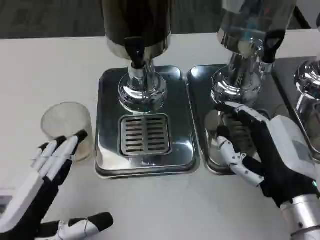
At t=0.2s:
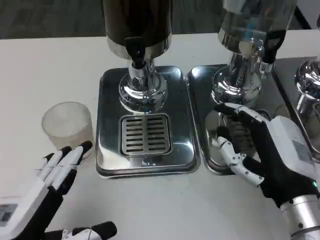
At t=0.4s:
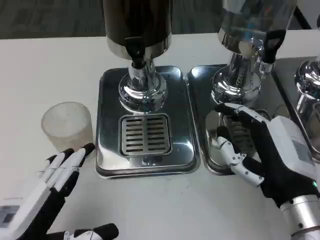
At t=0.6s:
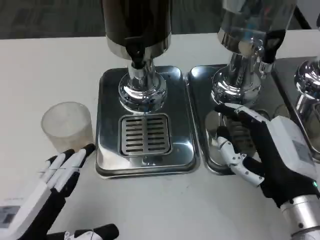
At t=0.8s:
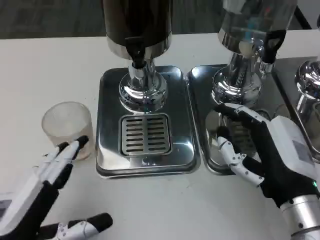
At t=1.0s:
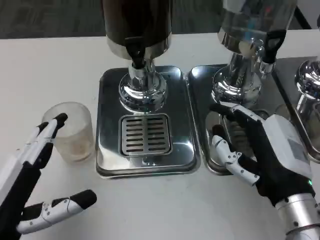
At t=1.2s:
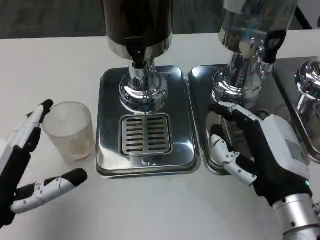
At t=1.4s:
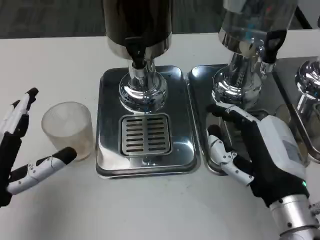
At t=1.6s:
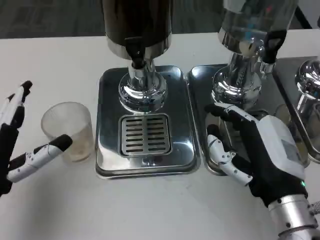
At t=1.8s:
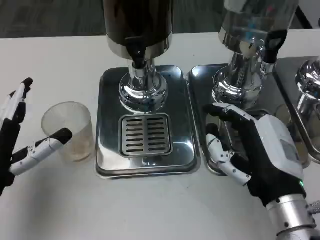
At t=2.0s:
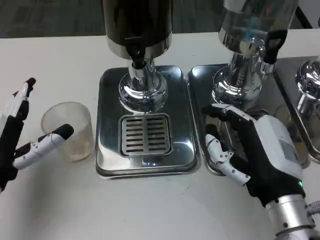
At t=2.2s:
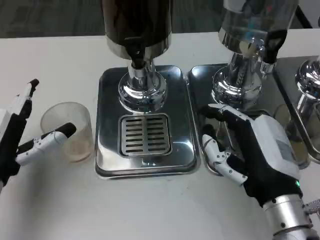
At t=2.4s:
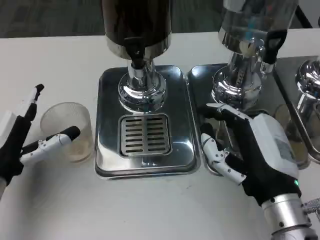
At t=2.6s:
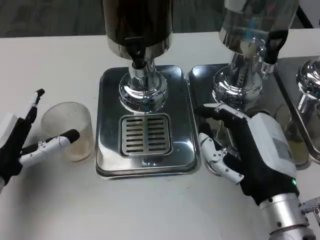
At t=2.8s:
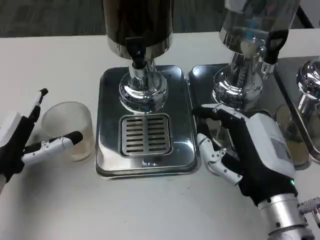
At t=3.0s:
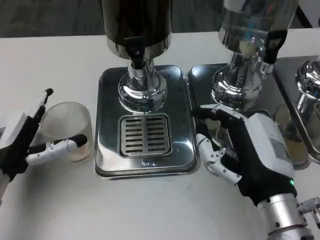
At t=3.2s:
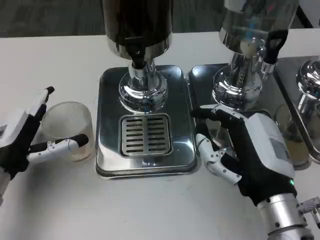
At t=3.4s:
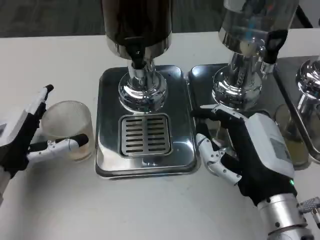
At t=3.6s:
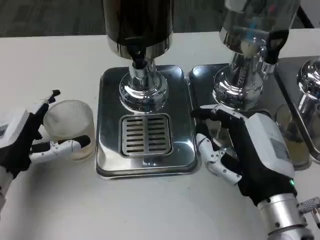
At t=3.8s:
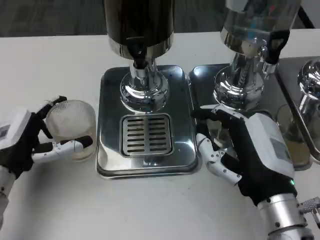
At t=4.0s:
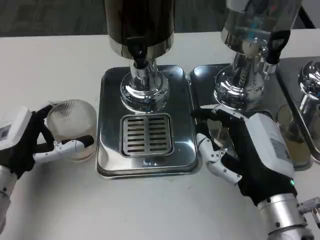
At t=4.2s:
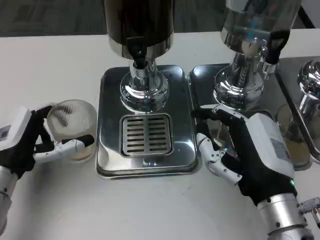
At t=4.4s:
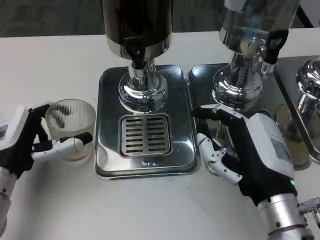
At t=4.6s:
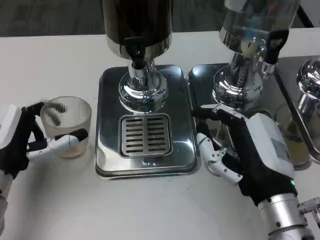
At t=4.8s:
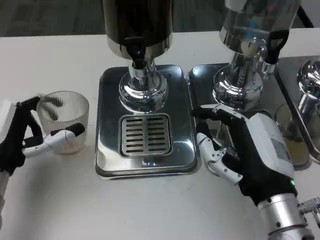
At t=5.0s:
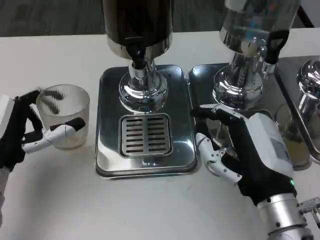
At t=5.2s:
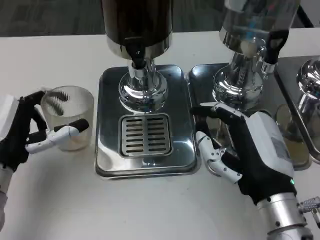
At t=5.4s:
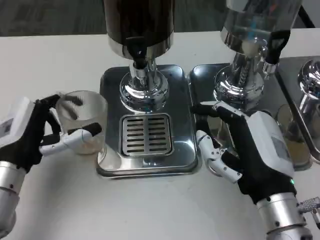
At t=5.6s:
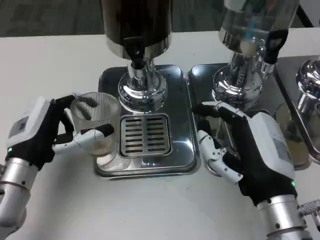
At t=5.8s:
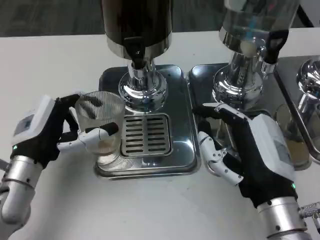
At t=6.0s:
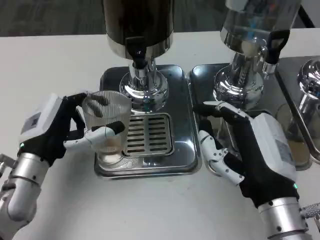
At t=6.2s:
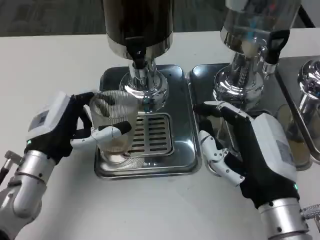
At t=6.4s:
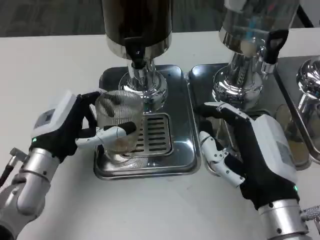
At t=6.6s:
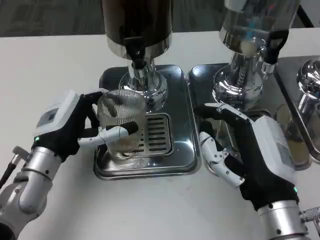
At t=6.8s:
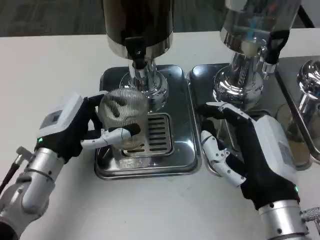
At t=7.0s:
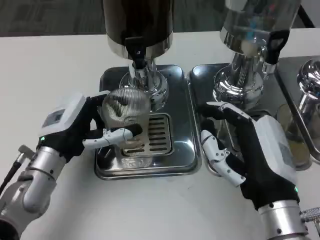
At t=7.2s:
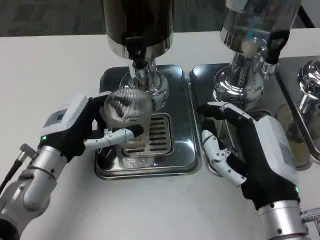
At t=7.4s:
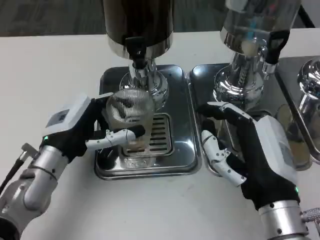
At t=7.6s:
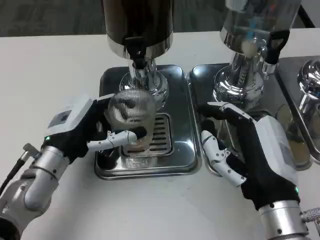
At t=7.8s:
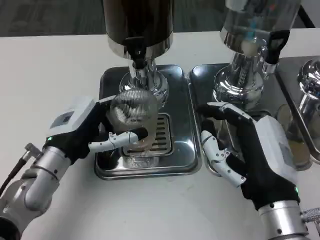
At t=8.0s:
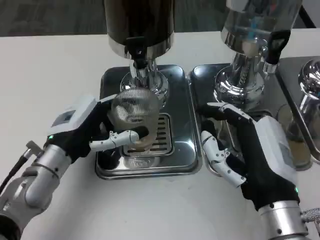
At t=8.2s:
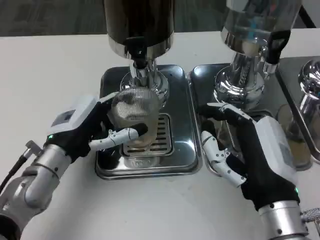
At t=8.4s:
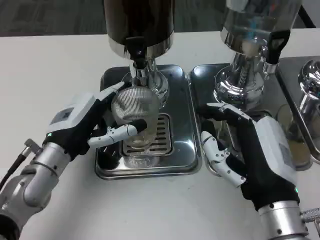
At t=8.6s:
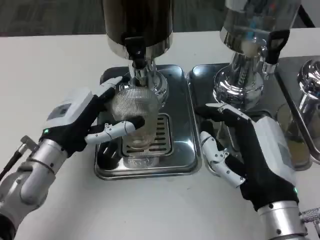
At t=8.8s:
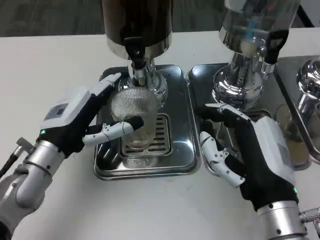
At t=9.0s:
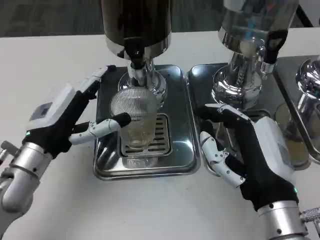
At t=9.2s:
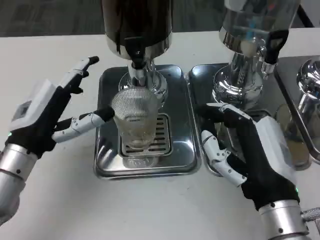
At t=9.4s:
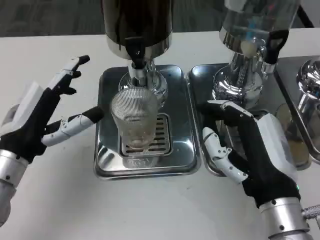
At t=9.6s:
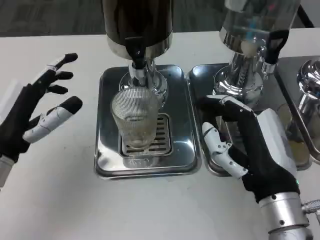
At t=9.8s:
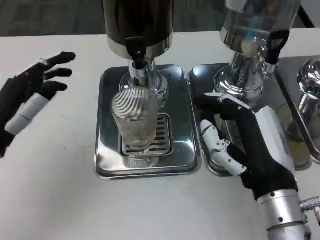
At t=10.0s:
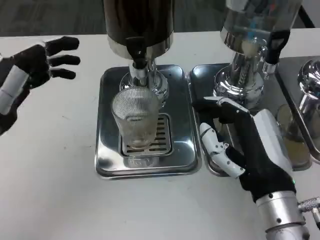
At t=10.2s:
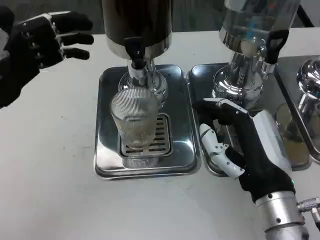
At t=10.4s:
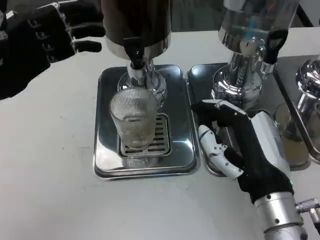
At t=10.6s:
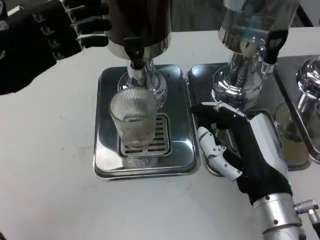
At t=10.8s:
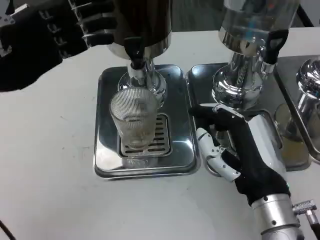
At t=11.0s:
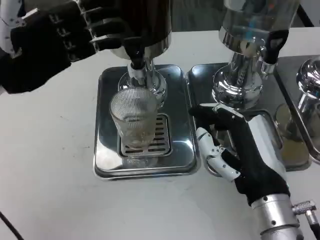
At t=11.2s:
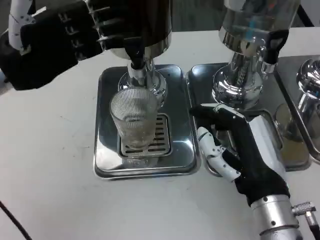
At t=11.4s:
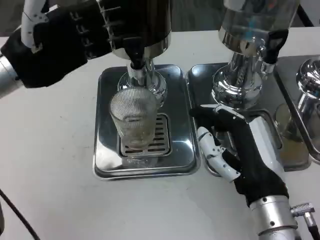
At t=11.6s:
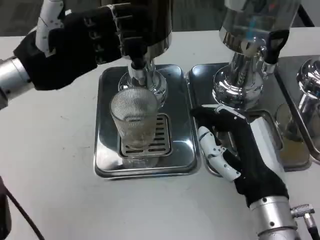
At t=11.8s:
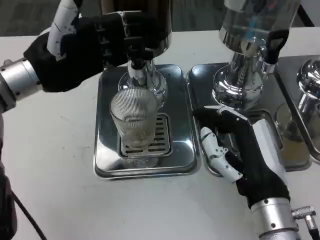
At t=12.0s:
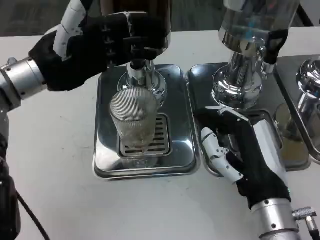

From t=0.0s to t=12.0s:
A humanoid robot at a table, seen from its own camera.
Task of the whole recording: Grasp the cup under the faucet to collect the drink, then remove the cup.
From t=0.0s to t=1.6s: The left hand shifts approximately 10 cm forward.
From t=1.6s to t=3.0s: The left hand travels forward by some 5 cm.
From t=3.0s to t=4.4s: There are only small adjustments of the hands.
From t=6.0s to t=7.6s: The hands make only small movements.
From t=9.0s to t=10.4s: The left hand moves upward and to the left, about 15 cm.
From t=10.4s to t=12.0s: The left hand is displaced to the right by about 5 cm.

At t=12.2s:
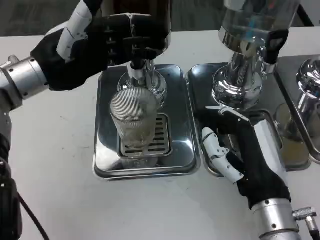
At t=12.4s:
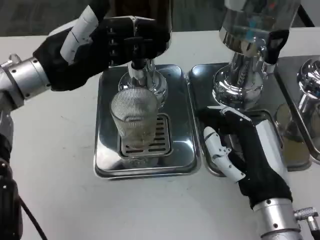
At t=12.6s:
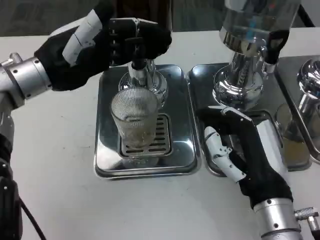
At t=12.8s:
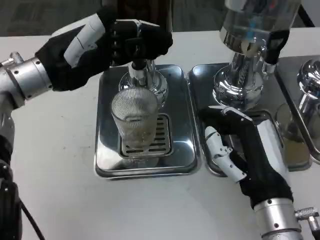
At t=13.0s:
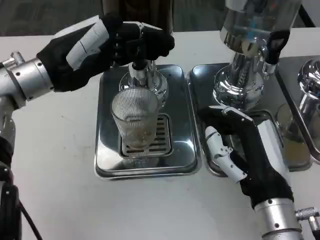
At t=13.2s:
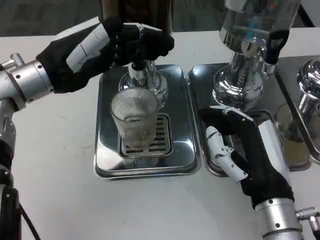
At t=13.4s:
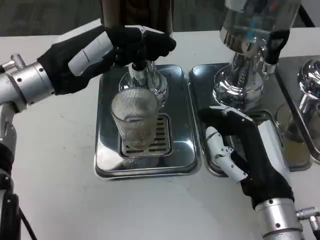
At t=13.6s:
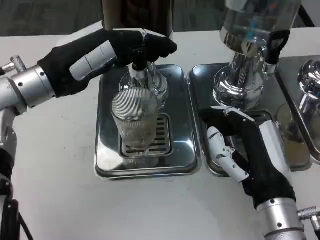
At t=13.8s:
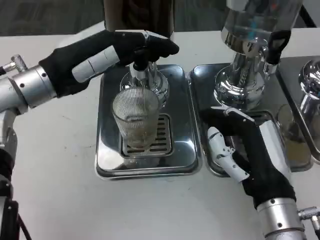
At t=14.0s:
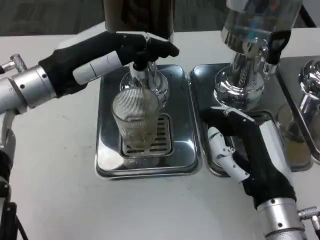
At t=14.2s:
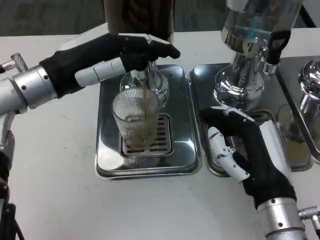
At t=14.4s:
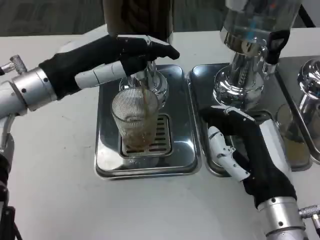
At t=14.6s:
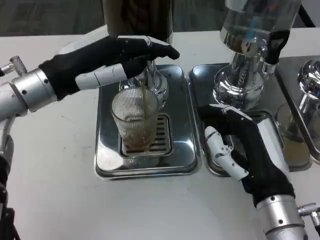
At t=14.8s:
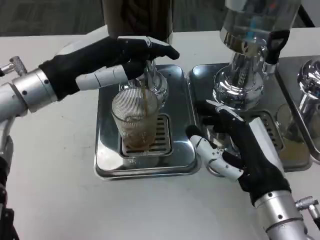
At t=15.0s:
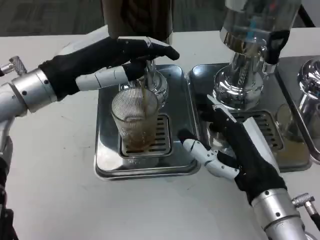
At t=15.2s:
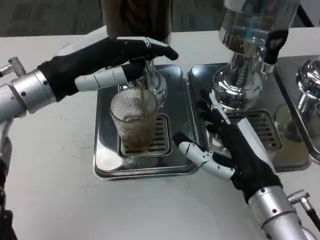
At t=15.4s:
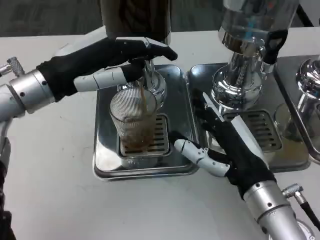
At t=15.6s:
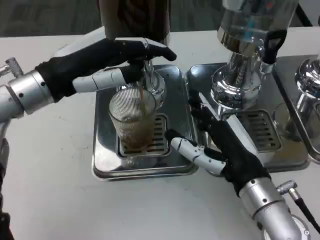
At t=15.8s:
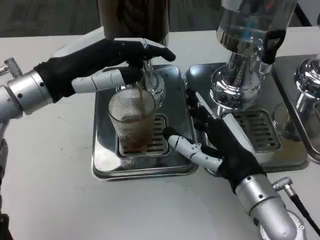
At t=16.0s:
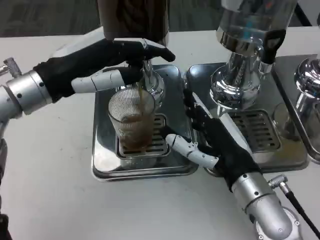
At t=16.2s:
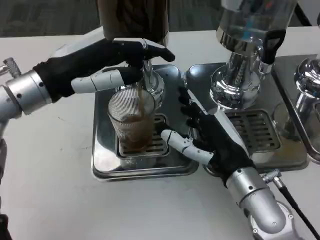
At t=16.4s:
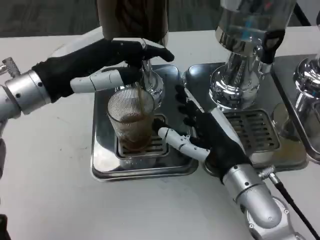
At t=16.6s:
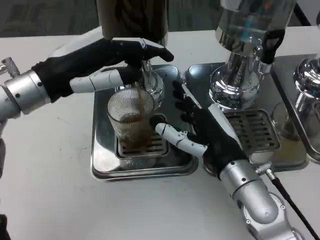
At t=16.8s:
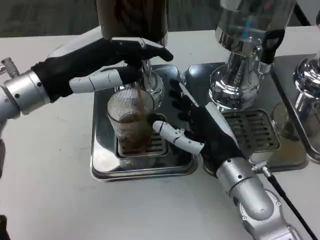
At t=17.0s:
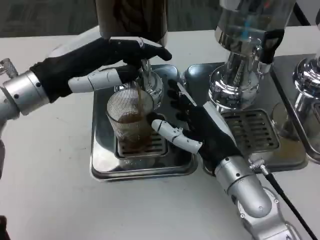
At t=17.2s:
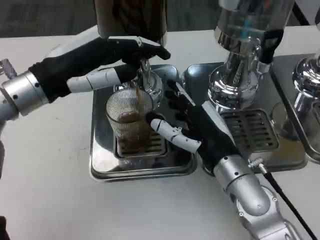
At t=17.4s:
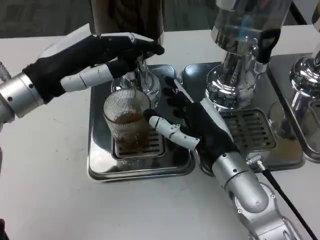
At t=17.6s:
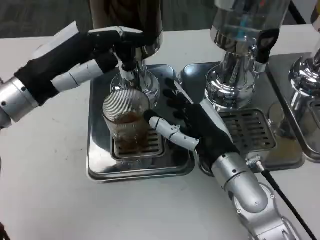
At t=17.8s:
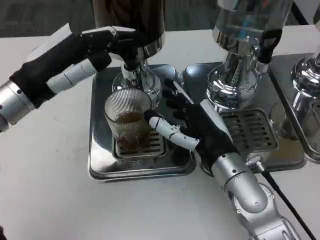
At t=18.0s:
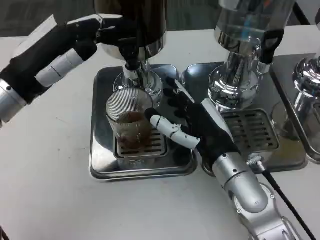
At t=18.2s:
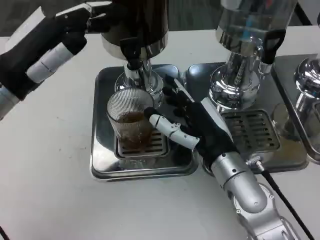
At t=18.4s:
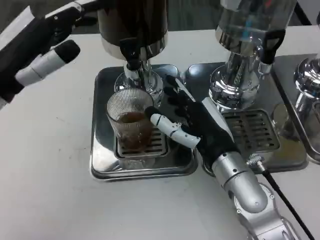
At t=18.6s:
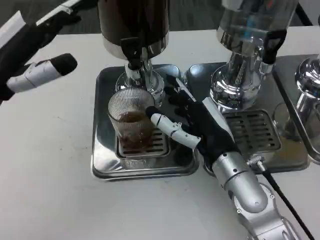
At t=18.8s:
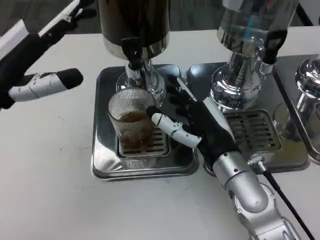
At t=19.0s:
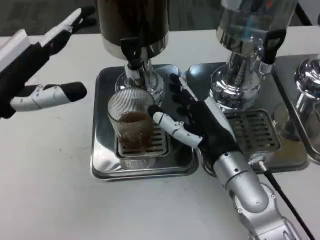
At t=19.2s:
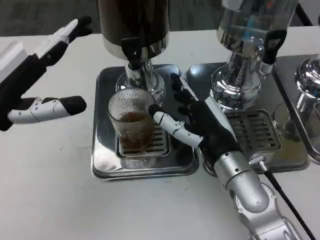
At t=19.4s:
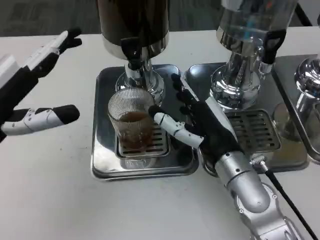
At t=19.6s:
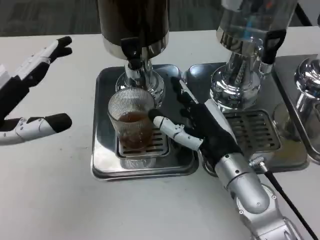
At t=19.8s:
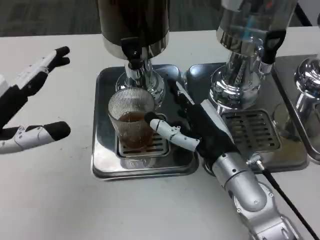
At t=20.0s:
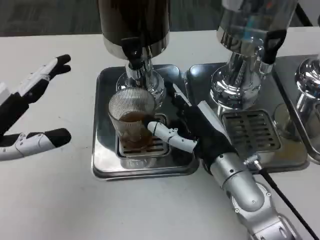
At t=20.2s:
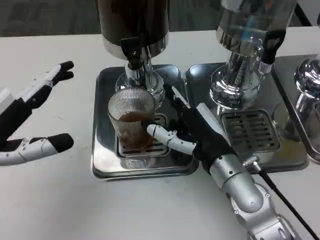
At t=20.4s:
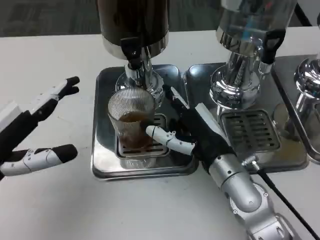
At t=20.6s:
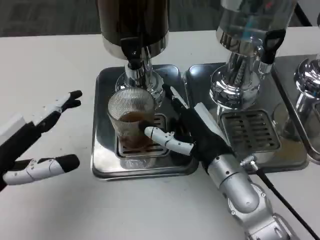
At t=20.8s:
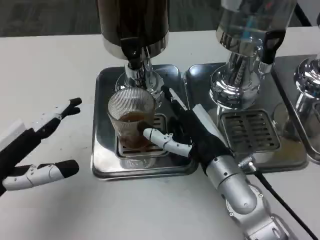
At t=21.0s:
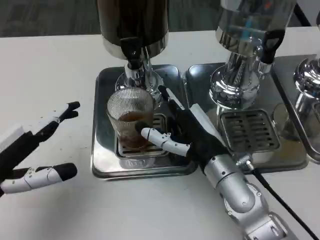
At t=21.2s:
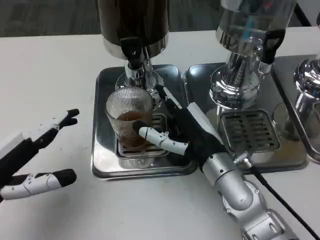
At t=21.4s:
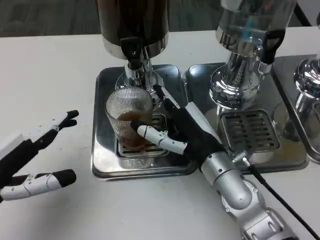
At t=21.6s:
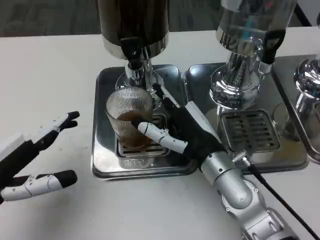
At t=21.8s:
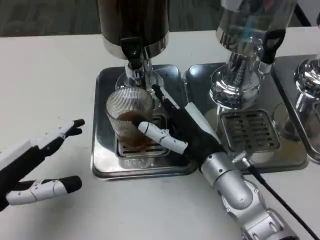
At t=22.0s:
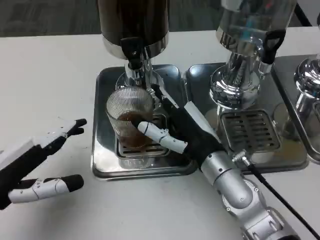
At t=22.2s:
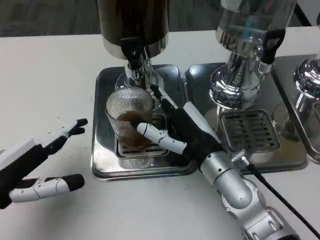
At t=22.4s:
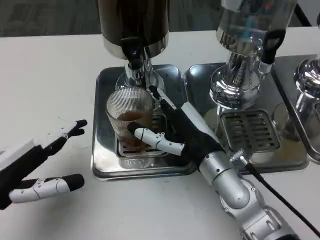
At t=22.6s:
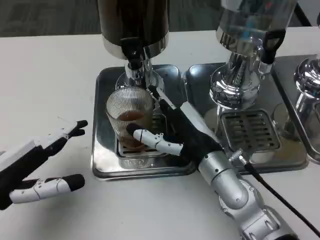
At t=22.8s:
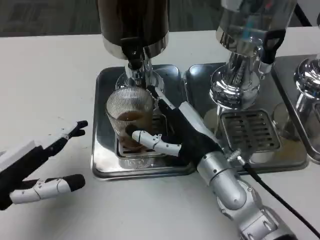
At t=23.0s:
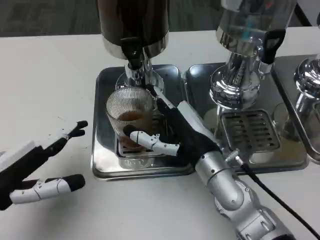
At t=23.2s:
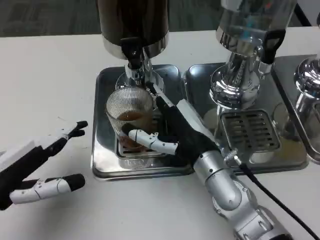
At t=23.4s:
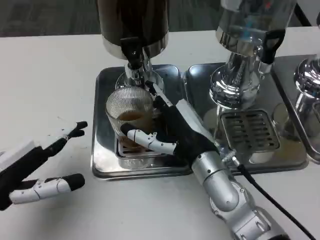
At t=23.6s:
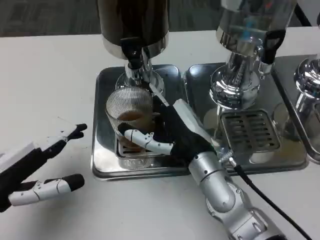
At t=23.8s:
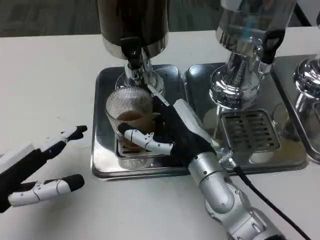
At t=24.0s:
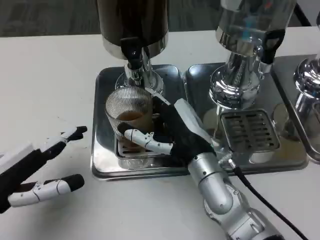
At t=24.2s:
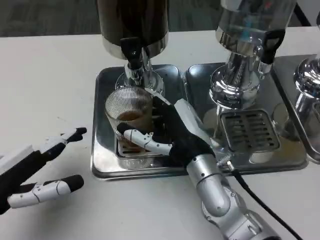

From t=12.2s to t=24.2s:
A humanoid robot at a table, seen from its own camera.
Task of the whole recording: Grasp the cup under the faucet to collect the drink, then remove the cup.
From t=15.2s to t=16.6s: The right hand moves approximately 5 cm.
From t=18.2s to t=19.8s: The left hand travels backward by about 10 cm.
From t=21.2s to t=22.6s: Neither hand changes place.
From t=22.6s to t=24.2s: There are only small adjustments of the hands.
